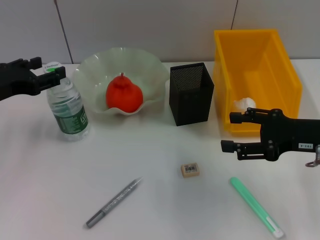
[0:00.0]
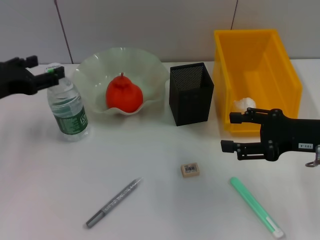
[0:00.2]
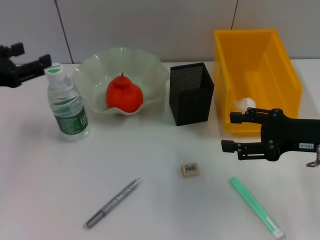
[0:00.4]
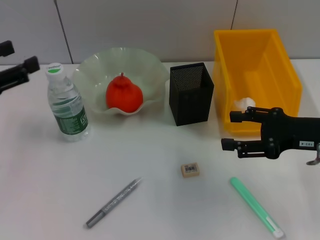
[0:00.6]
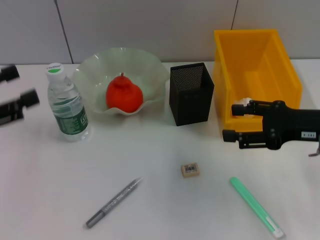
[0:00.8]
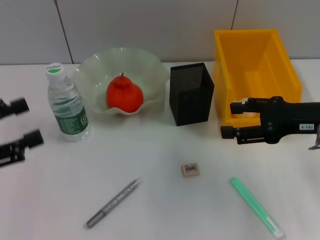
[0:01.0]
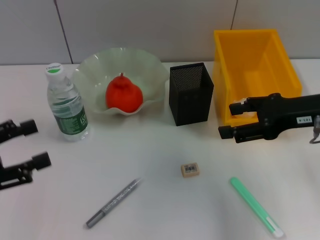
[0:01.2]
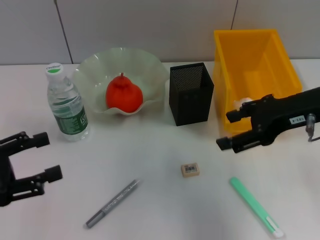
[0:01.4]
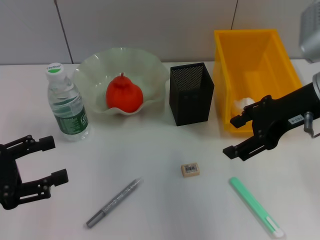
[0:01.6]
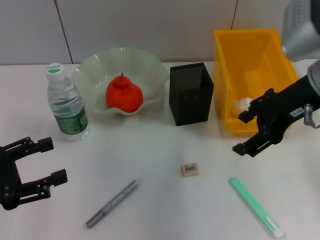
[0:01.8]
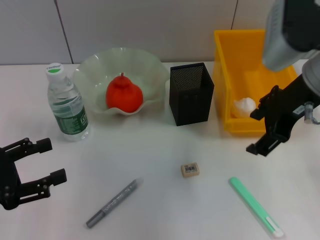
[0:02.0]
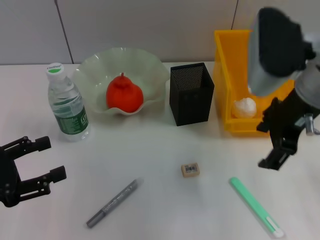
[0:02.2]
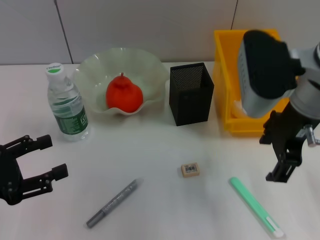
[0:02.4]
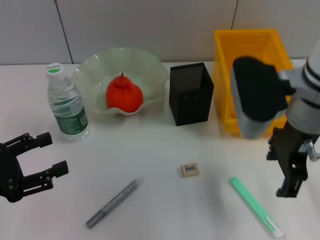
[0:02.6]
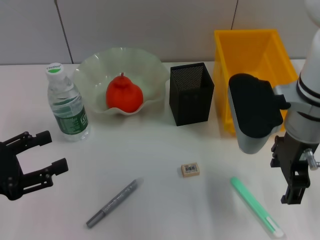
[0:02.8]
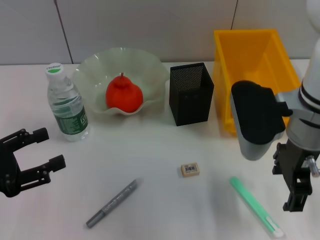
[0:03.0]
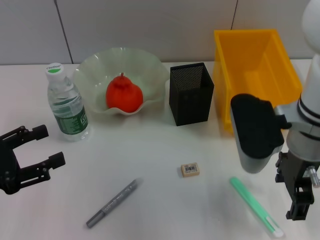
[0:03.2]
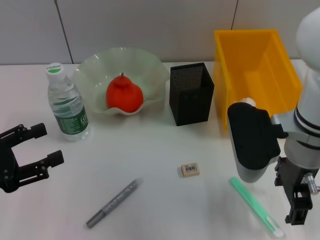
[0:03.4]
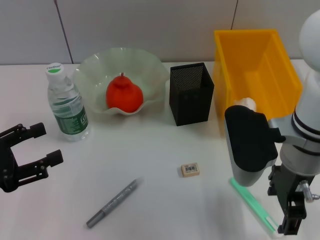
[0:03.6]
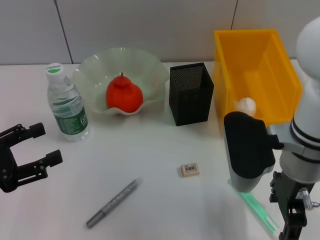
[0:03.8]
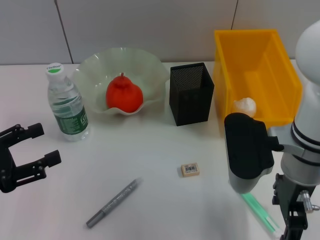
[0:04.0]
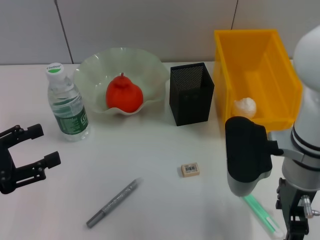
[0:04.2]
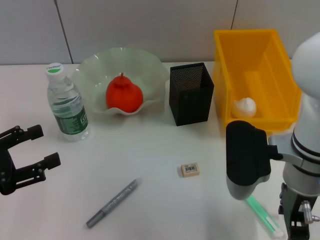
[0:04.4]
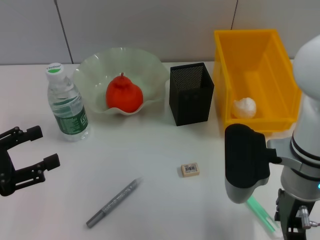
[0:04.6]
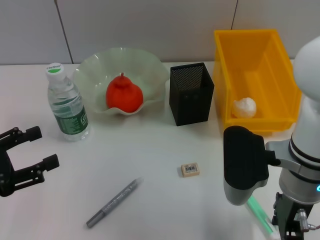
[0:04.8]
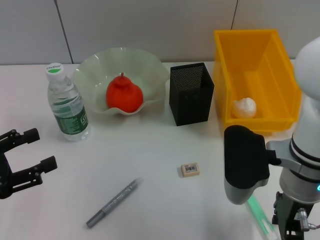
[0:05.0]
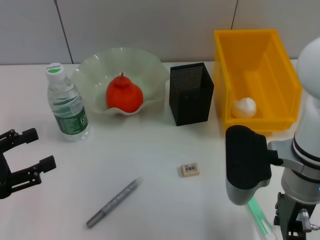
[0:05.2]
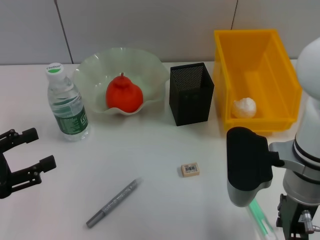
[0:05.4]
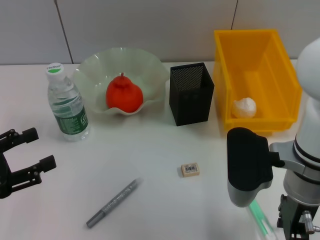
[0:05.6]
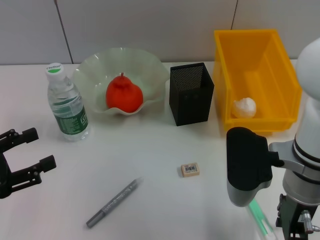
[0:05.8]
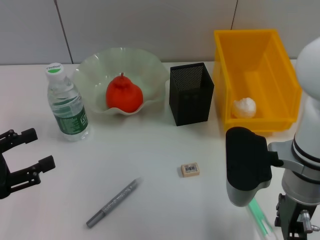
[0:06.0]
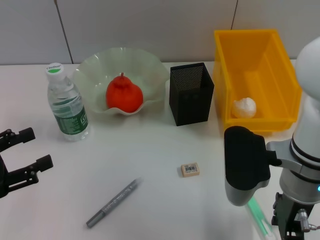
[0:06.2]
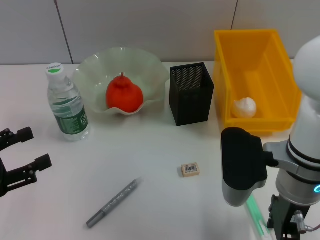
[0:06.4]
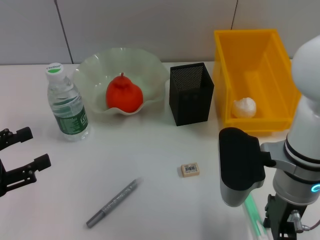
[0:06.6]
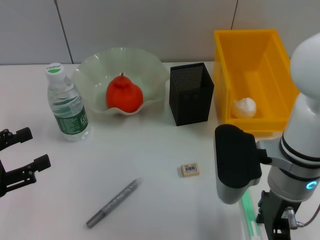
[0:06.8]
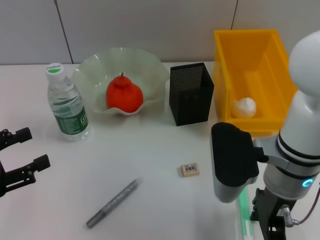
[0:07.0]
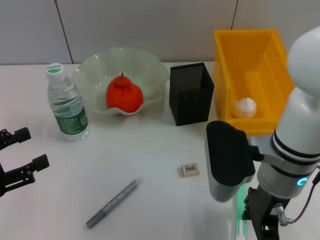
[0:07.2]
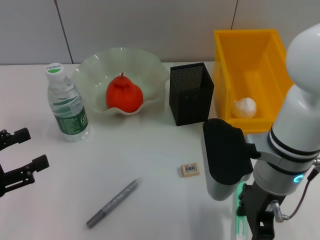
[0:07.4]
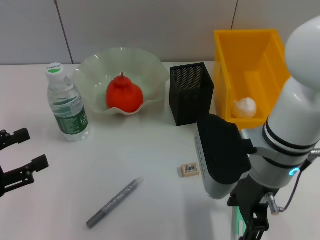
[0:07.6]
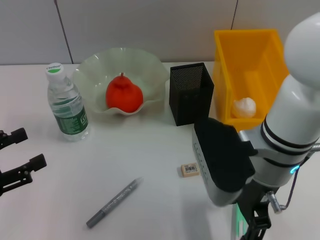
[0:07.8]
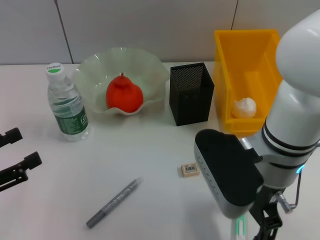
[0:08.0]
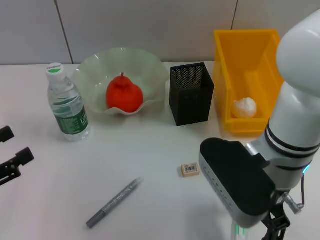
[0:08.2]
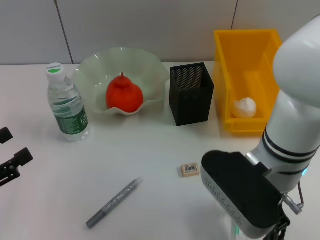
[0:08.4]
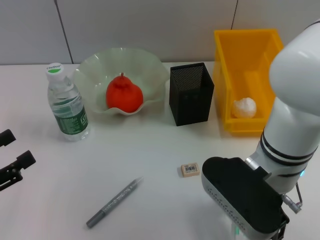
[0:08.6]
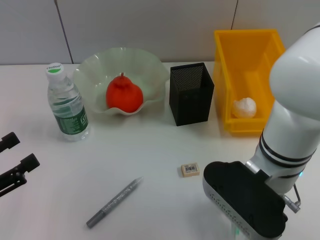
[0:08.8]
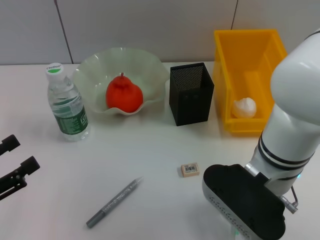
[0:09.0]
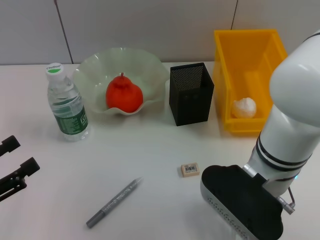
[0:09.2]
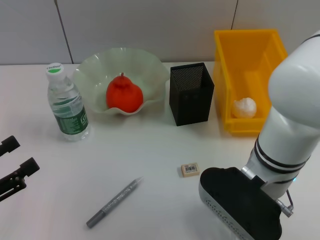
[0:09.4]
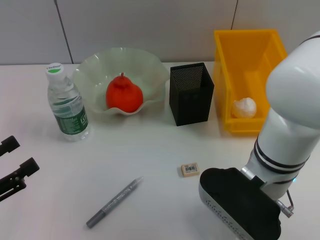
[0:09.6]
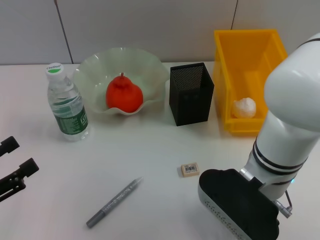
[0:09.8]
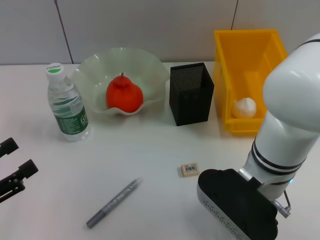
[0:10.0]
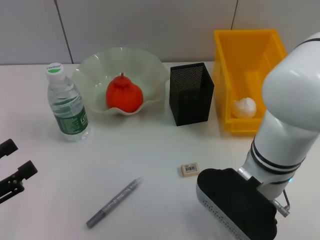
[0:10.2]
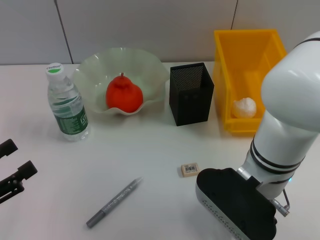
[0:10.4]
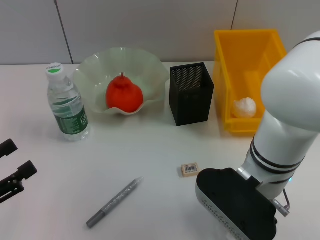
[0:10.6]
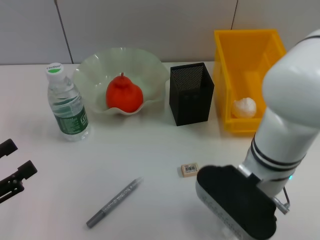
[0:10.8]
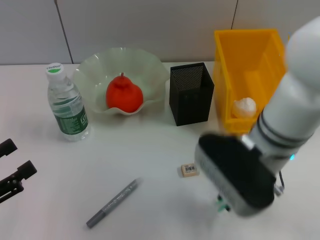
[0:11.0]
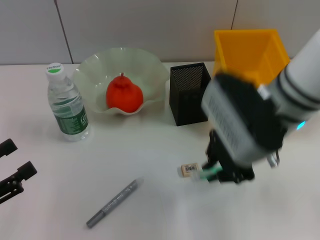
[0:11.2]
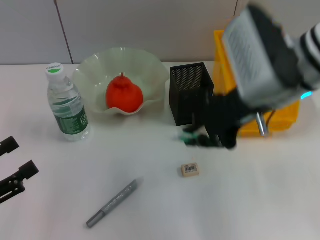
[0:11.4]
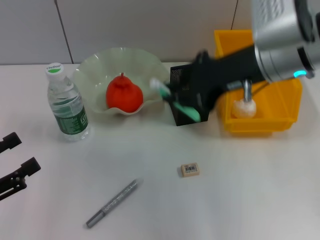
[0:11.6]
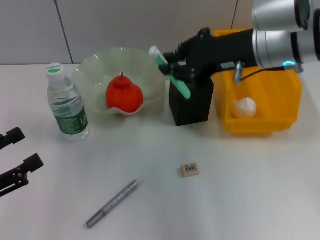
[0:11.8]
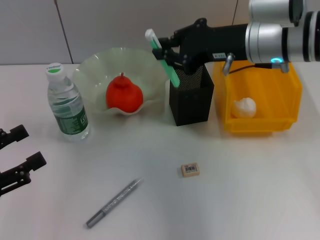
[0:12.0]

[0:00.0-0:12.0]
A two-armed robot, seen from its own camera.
Step, 0:00.4 to 0:10.6: Grab the blue utility knife with the right hand.
0:00.0 to 0:01.6: The left gripper travels backward by about 10 cm; the right gripper goes some 10 cm upward and to the left.
0:01.6 to 0:03.0: The right gripper is displaced to the left by roughly 5 cm.
0:03.0 to 0:04.4: The right gripper changes place by approximately 5 cm.
0:04.4 to 0:06.0: Both grippers stay put.
0:06.0 to 0:07.6: The grippers move only a little.
0:09.0 to 0:10.4: The right gripper closes up.
0:10.4 to 0:12.0: The right gripper travels forward and upward by approximately 15 cm, and closes.

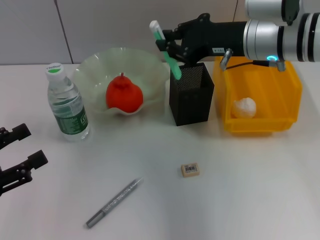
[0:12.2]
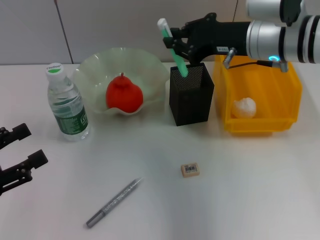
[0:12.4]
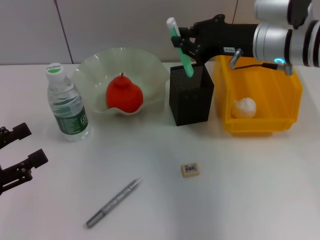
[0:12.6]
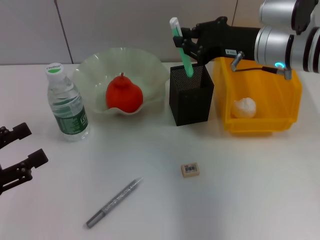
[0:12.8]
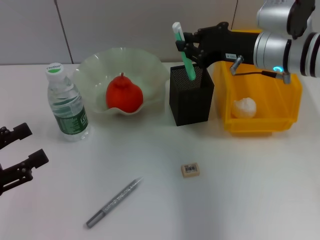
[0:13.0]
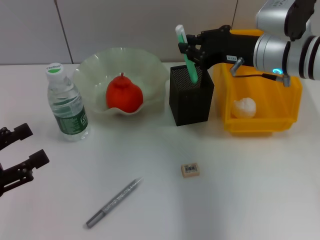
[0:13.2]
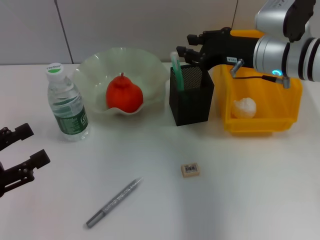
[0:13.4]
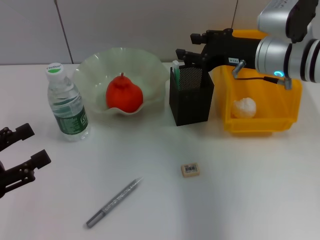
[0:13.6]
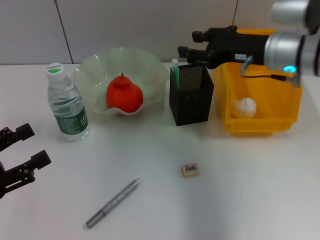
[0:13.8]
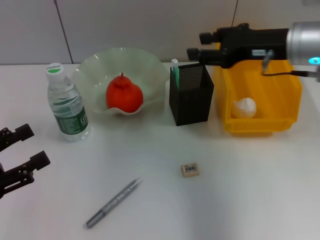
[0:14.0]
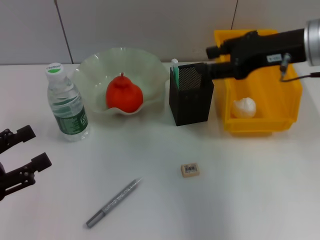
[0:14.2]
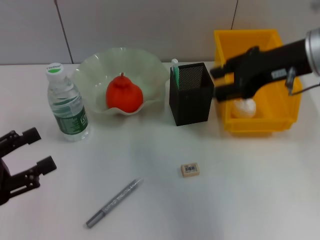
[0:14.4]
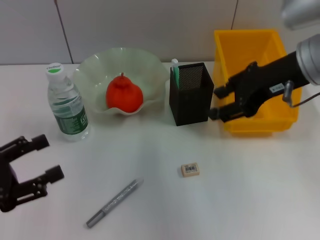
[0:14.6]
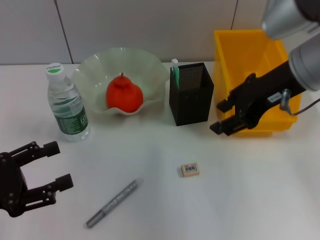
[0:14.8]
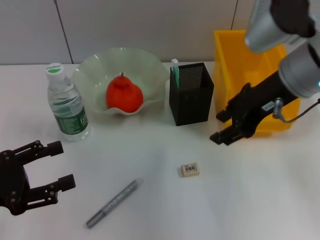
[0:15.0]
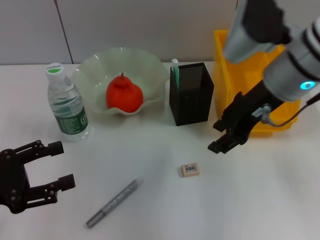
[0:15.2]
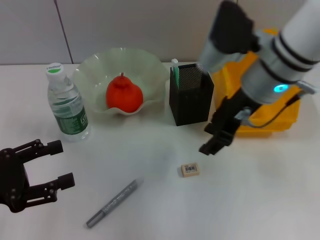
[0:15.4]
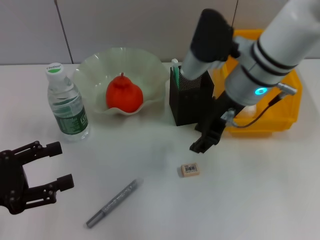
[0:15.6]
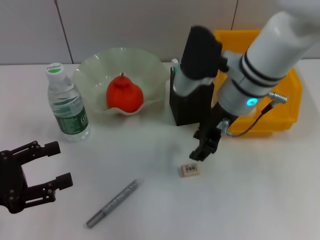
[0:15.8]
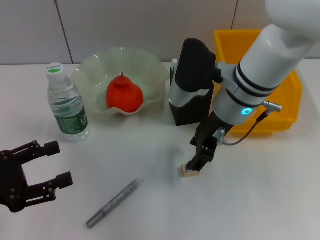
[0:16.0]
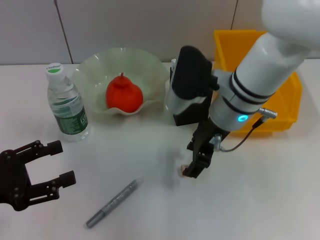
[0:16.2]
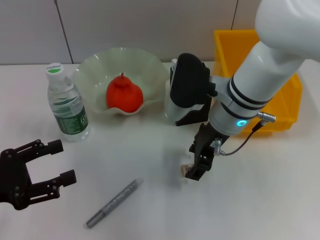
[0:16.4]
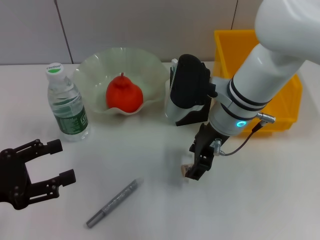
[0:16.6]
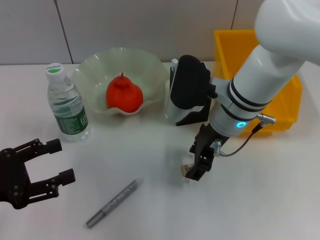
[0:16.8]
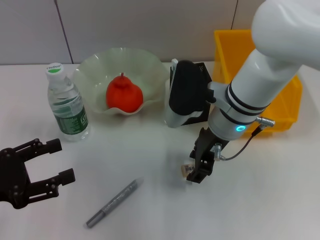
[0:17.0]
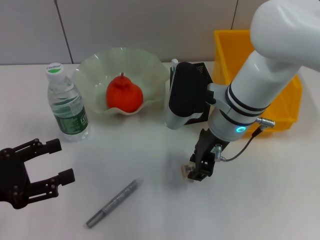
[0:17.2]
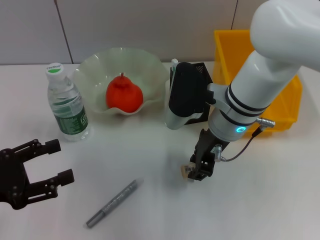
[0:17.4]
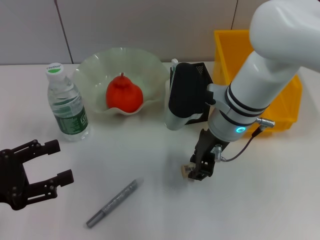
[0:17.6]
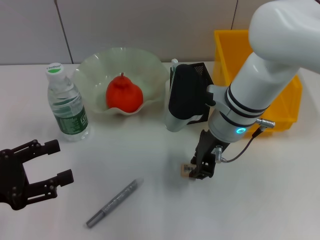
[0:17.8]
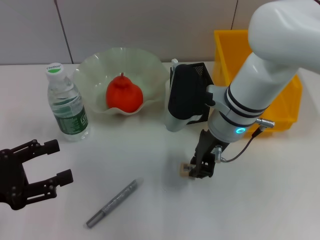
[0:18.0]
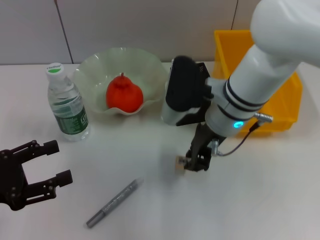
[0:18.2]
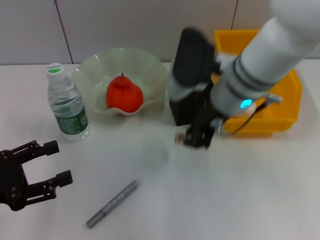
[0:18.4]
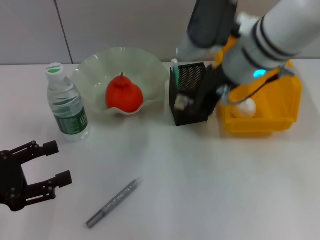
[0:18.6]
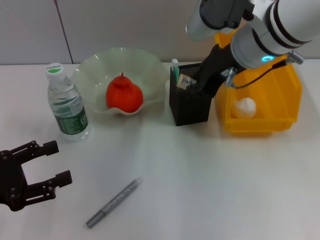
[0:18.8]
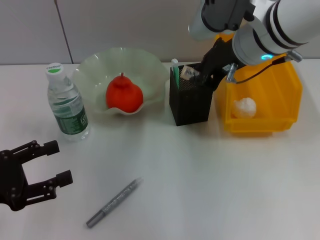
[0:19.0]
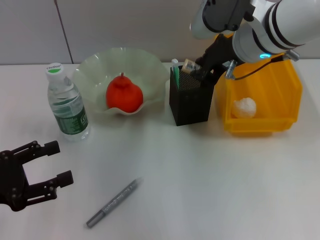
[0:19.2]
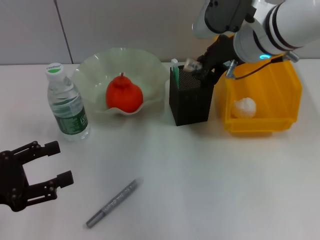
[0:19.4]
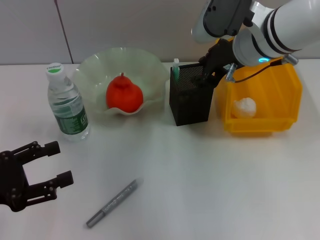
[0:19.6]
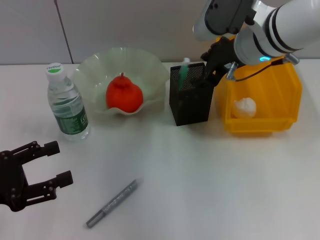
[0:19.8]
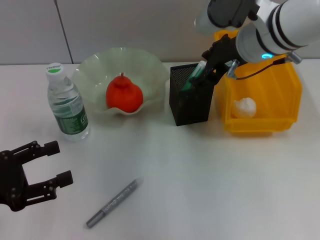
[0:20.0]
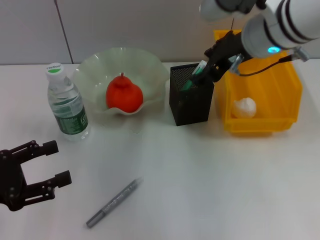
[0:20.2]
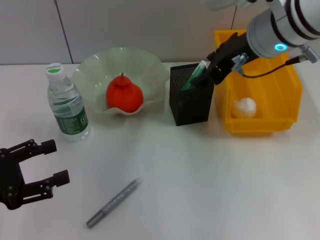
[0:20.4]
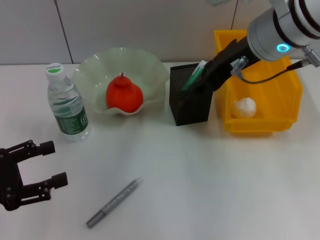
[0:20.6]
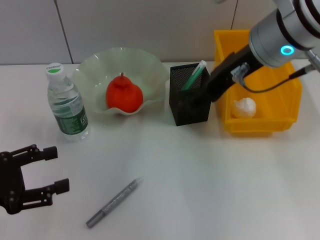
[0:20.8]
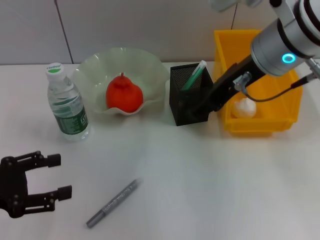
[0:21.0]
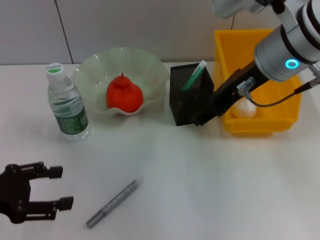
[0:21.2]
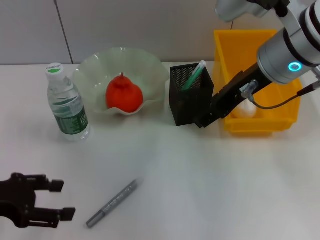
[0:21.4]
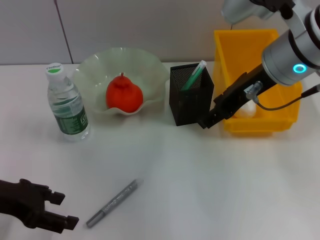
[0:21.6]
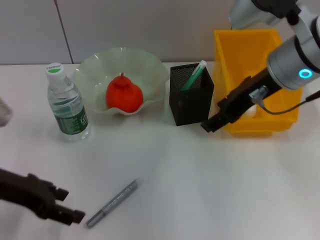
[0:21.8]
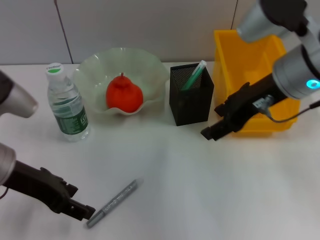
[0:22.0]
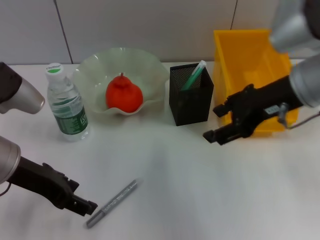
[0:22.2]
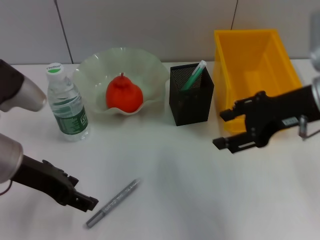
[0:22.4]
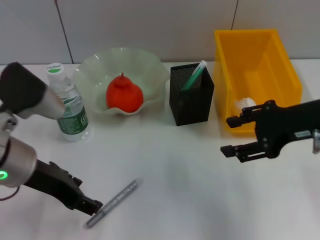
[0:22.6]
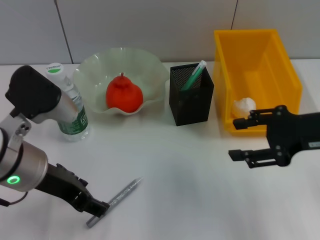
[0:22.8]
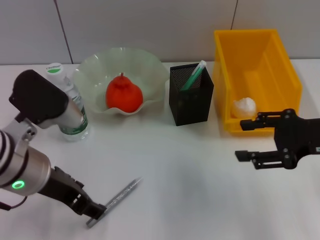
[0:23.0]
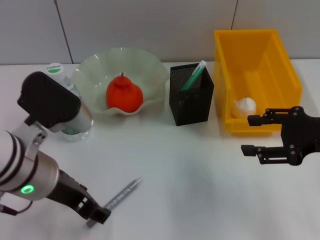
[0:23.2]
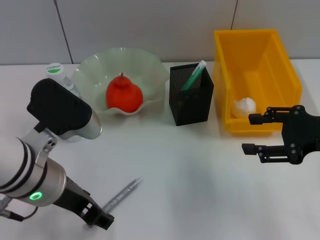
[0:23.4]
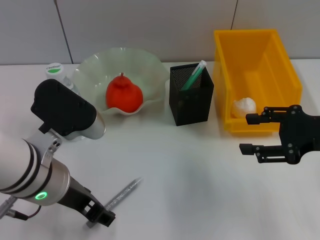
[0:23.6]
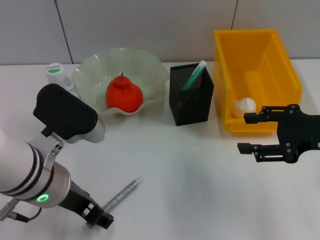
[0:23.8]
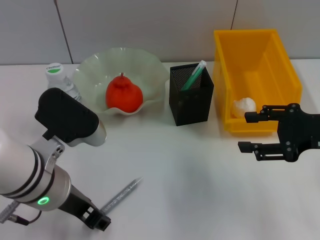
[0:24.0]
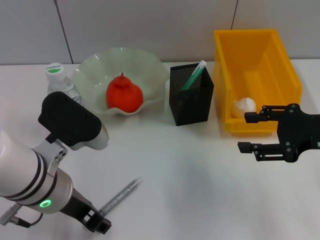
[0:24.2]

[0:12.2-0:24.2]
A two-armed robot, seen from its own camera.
Step, 0:13.4 to 0:17.8: Grab the eraser with the right hand.
Step, 0:18.2 to 0:19.4: Put the eraser into the pen holder with the right hand.
0:12.2 to 0:13.8: The right gripper opens its fingers.
0:13.8 to 0:15.2: The right gripper ends up approximately 10 cm from where it was.
0:15.2 to 0:16.6: The right gripper moves downward and to the left, approximately 10 cm.
0:16.6 to 0:18.2: The right gripper closes.
0:18.2 to 0:19.8: The right gripper shifts roughly 5 cm upward.
0:19.8 to 0:21.2: The right gripper heads backward, covering approximately 5 cm.
0:21.2 to 0:22.6: The left gripper travels to the right and forward by about 15 cm; the right gripper heads to the right and downward, covering about 15 cm.
0:22.6 to 0:24.2: The left gripper goes roughly 5 cm to the right, while the right gripper shifts by about 5 cm.
